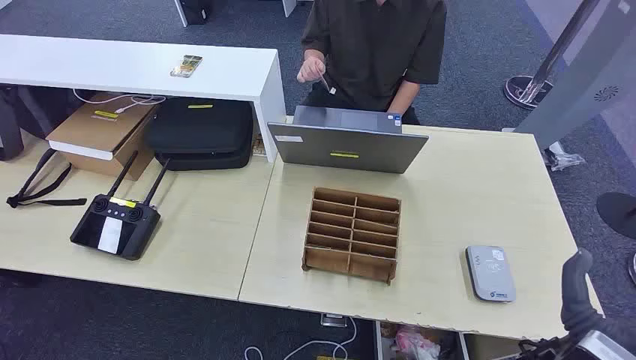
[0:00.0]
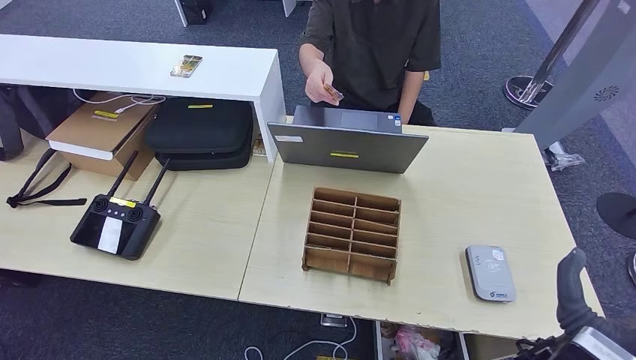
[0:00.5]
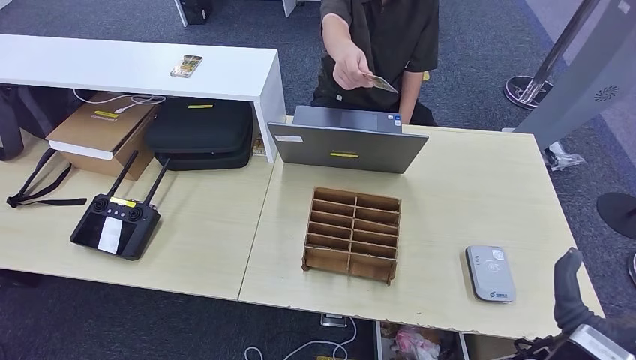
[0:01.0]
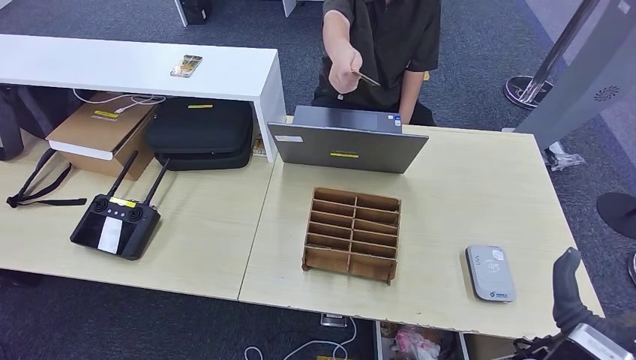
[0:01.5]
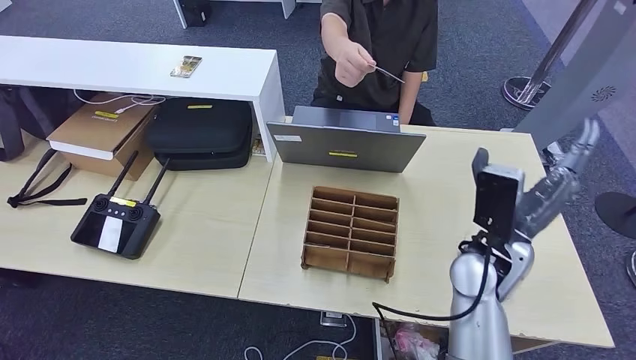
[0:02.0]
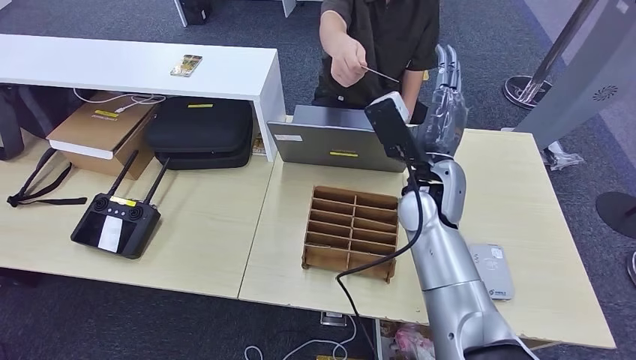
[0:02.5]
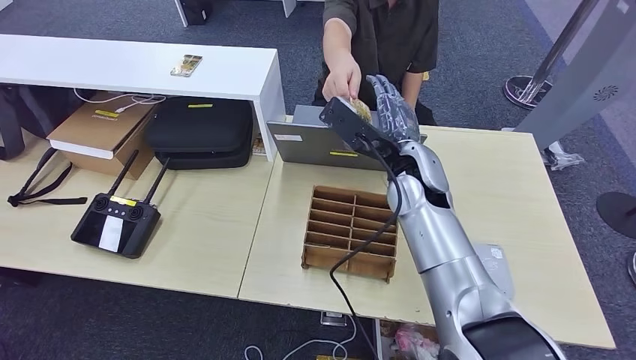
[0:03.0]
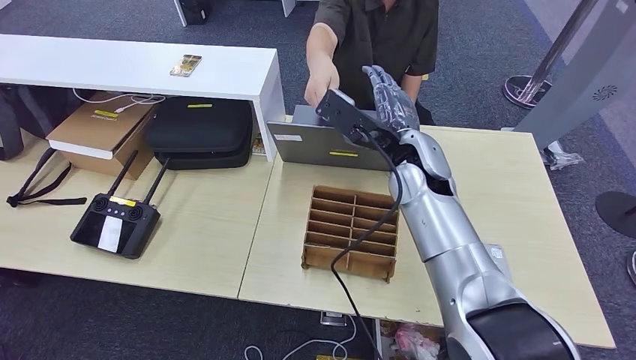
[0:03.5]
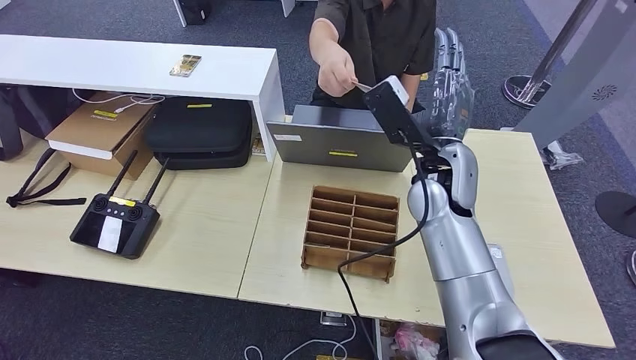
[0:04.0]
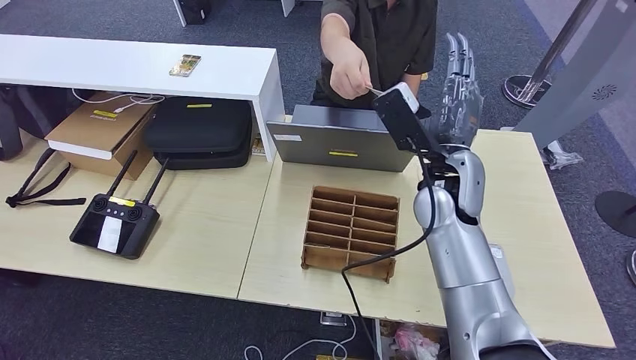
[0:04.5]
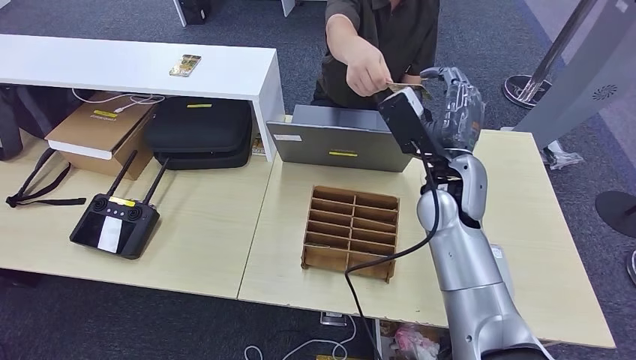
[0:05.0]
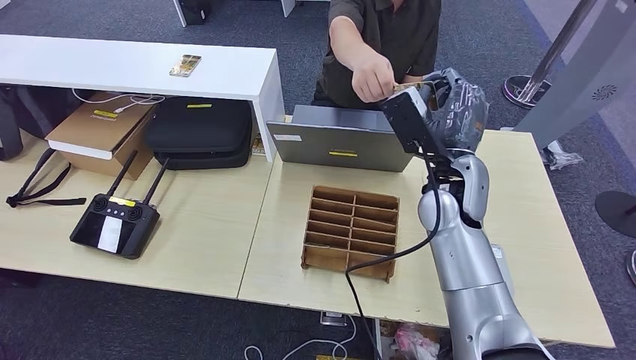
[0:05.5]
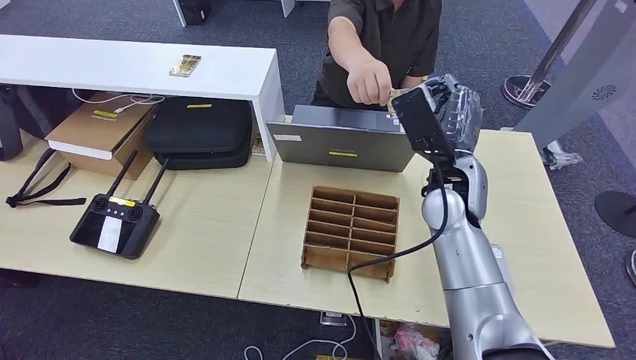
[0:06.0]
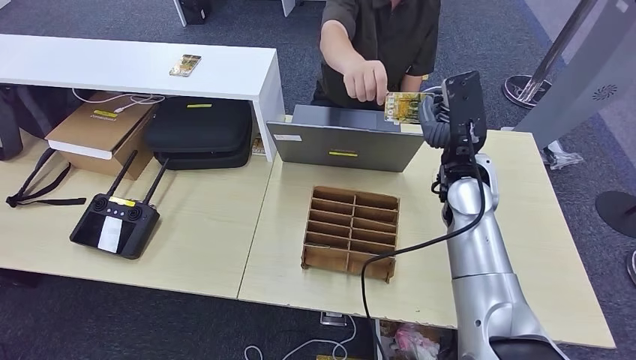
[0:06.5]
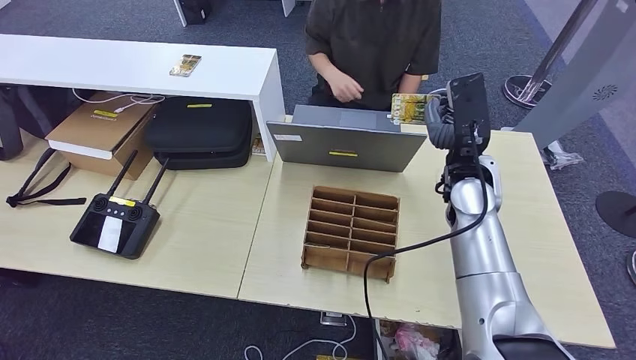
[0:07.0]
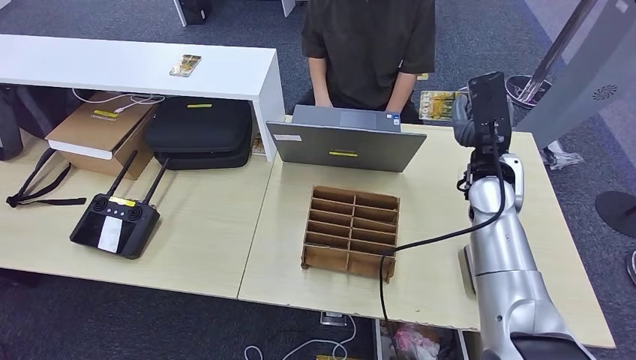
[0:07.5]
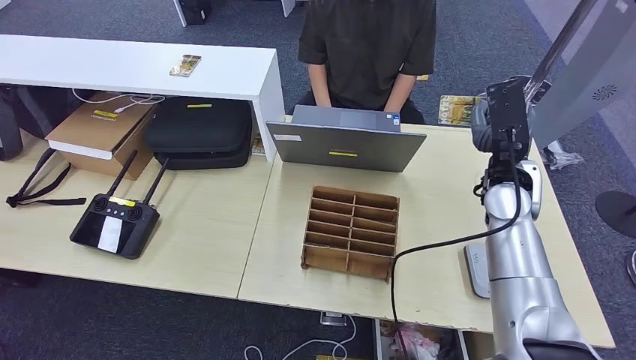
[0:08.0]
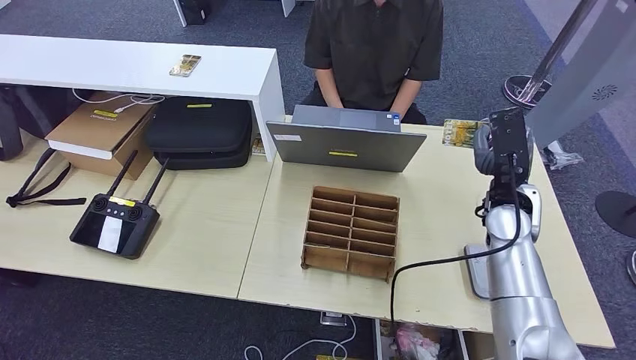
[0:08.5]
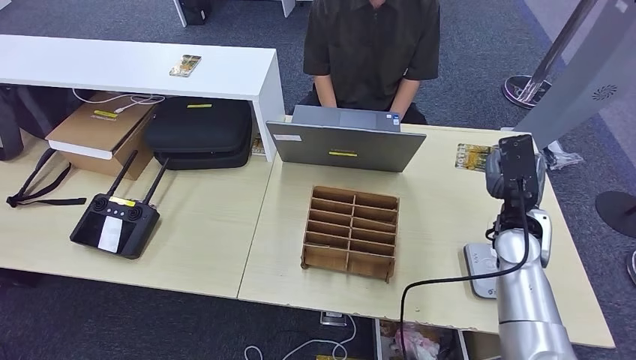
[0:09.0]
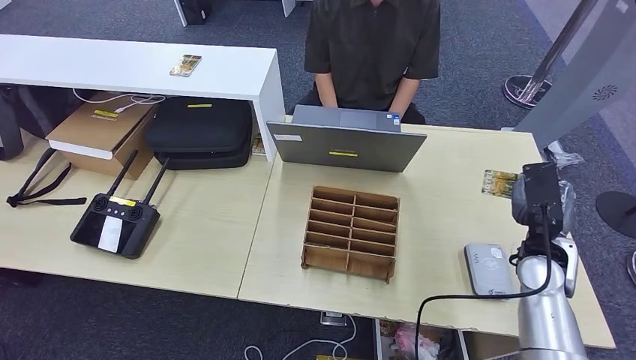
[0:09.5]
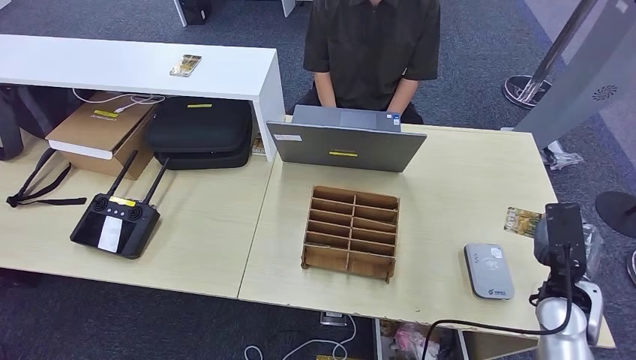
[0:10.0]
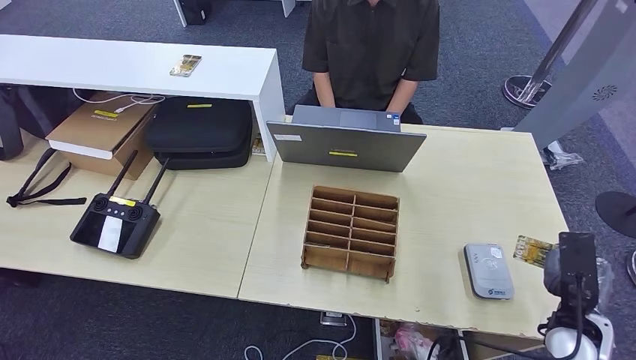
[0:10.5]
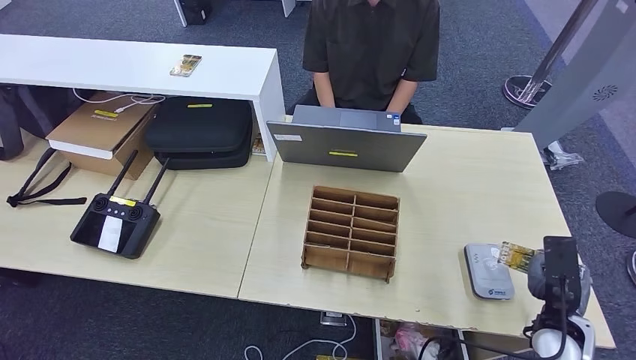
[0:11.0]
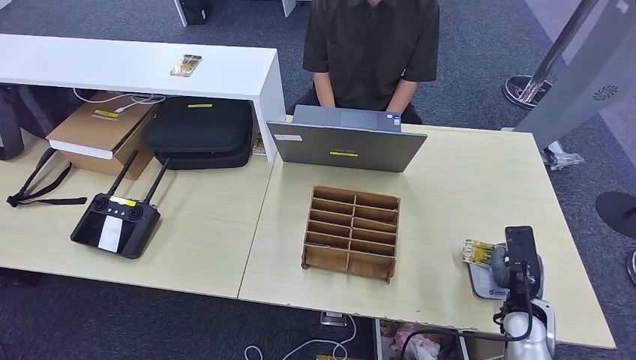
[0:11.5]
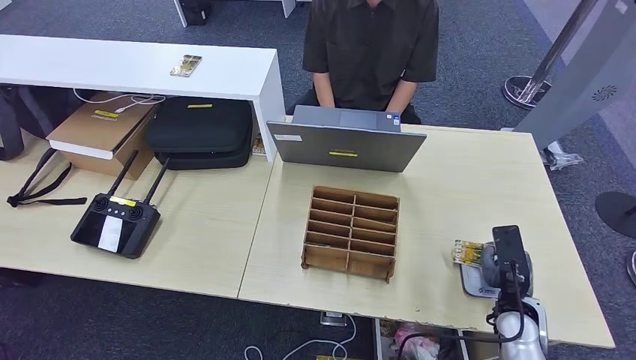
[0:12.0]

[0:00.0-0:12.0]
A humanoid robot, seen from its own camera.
Step, 0:00.0 to 0:07.0: Take the ID card from the person's hand.
0:02.0 to 0:04.0: The right hand travels forward, to the left and upward by about 15 cm.
0:04.0 to 0:06.0: There are only small adjustments of the hands.
0:06.0 to 0:08.0: The right hand heads to the right, covering roughly 10 cm.
0:08.0 to 0:10.0: The right hand moves downward, backward and to the right, some 20 cm.
0:10.0 to 0:12.0: The right hand moves downward, some 5 cm.

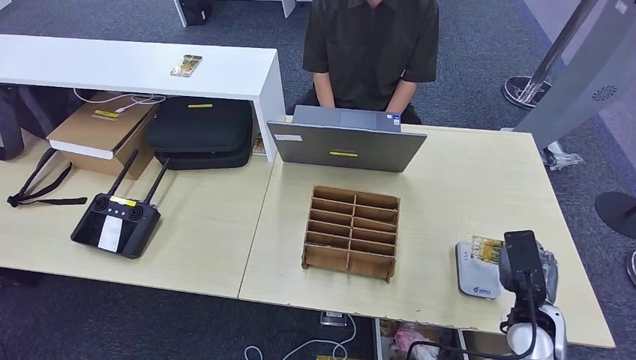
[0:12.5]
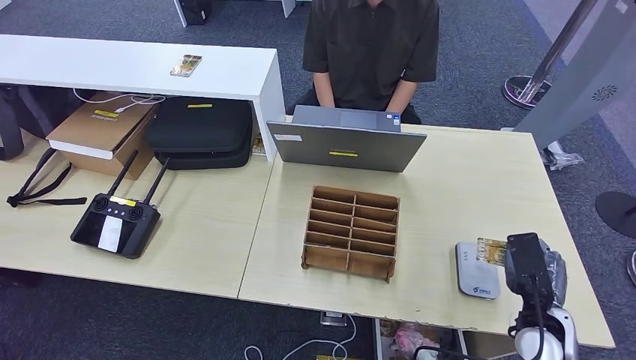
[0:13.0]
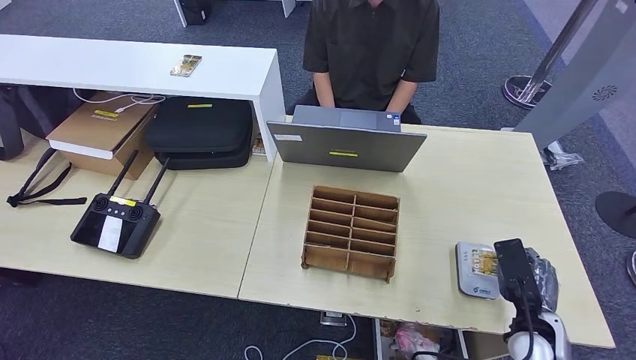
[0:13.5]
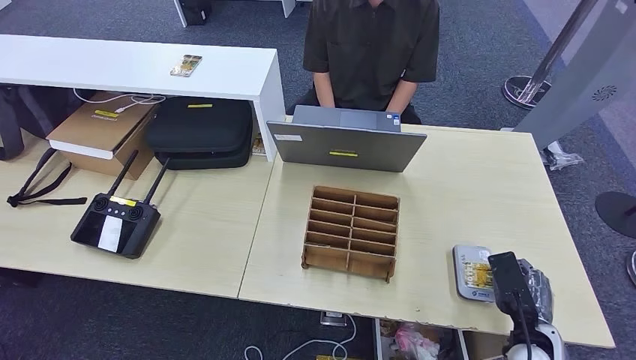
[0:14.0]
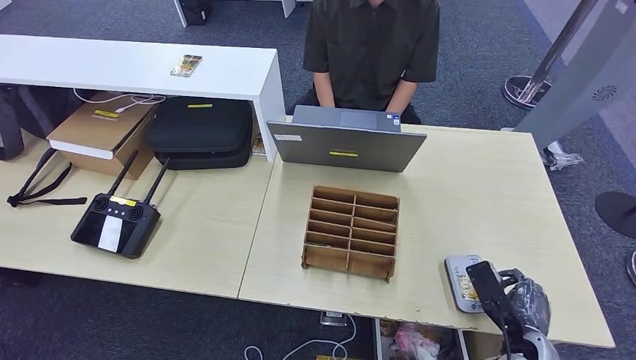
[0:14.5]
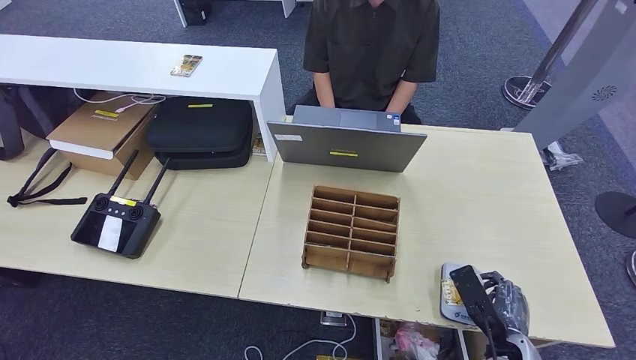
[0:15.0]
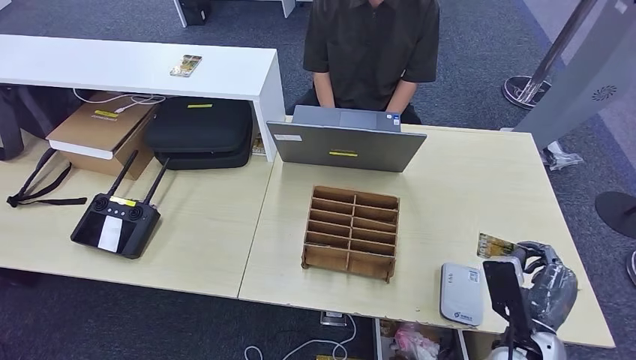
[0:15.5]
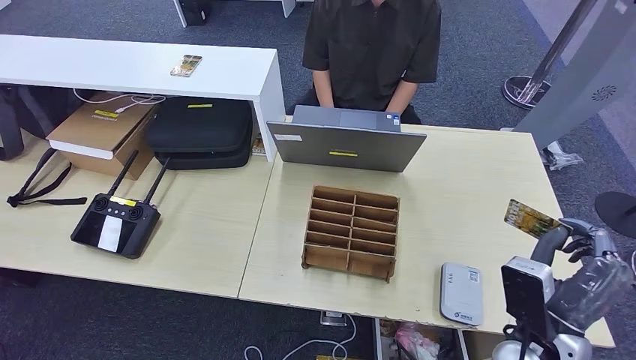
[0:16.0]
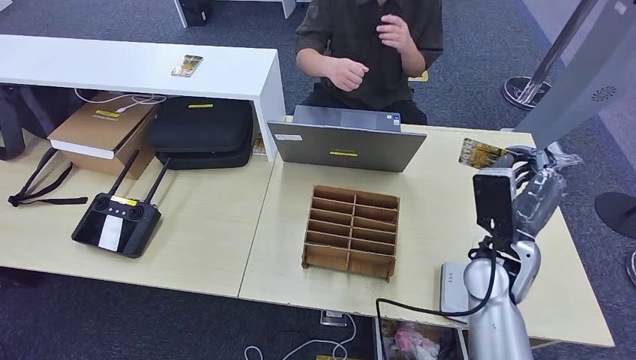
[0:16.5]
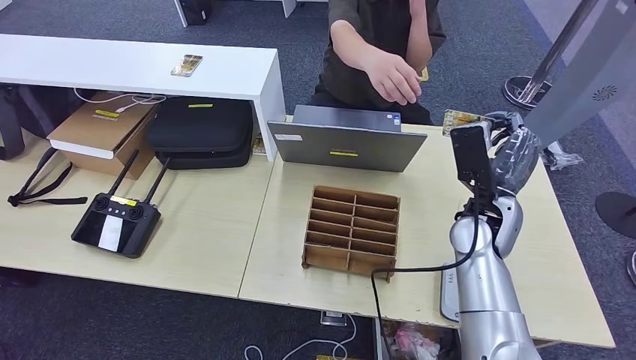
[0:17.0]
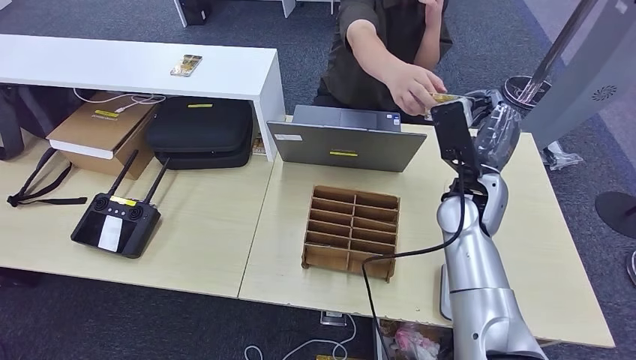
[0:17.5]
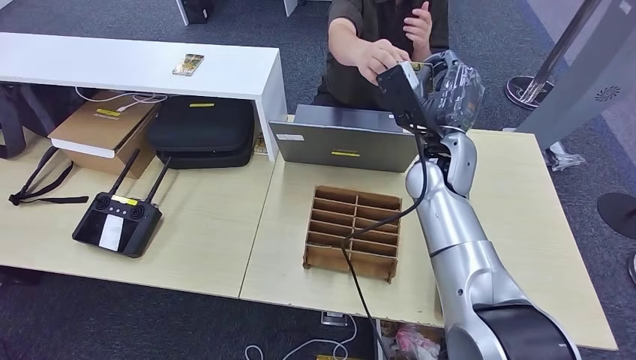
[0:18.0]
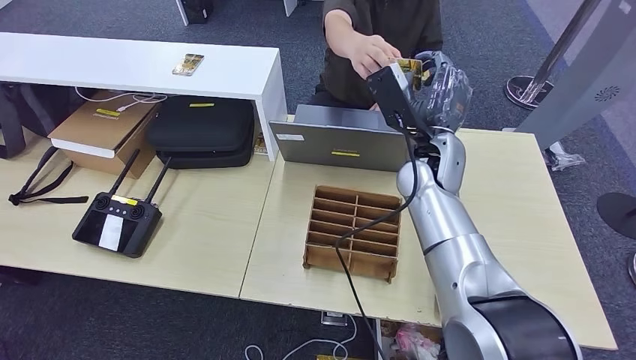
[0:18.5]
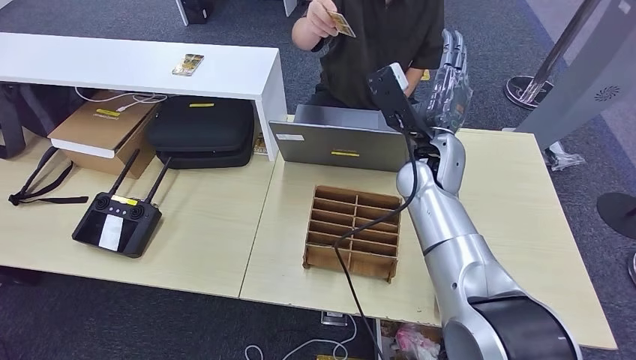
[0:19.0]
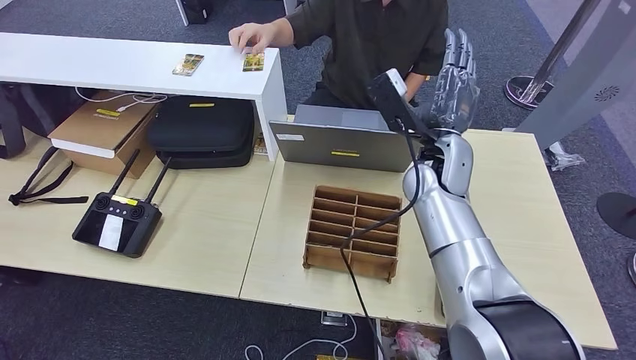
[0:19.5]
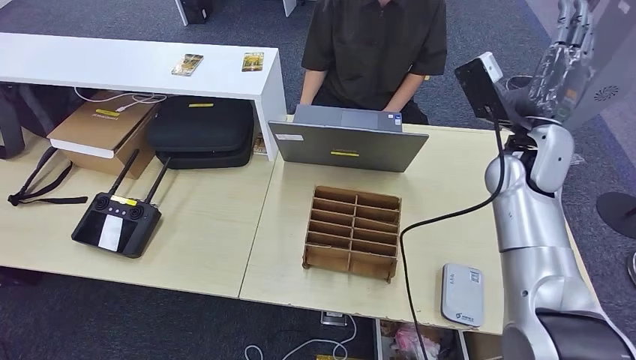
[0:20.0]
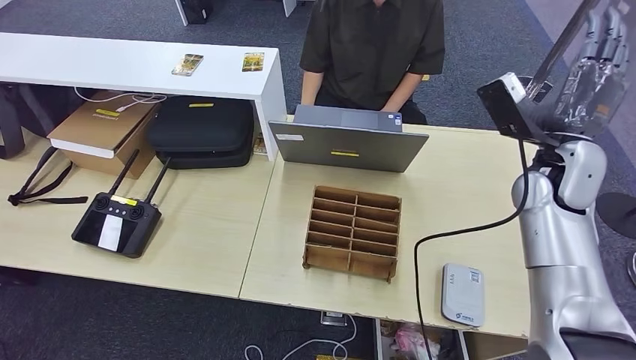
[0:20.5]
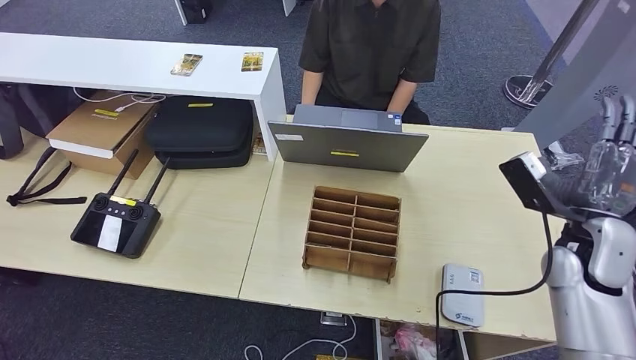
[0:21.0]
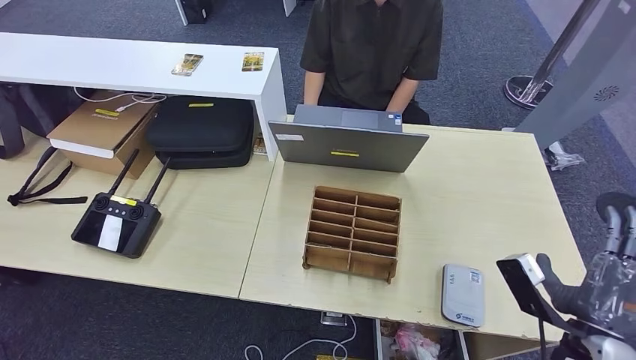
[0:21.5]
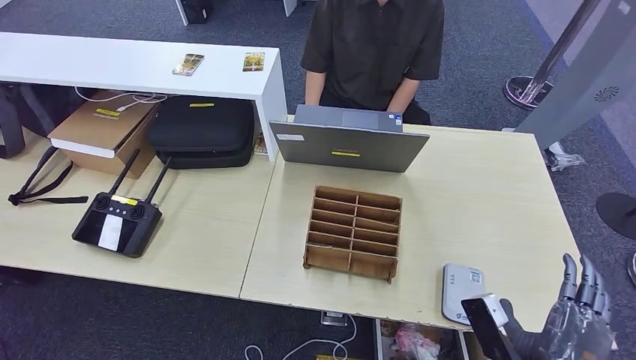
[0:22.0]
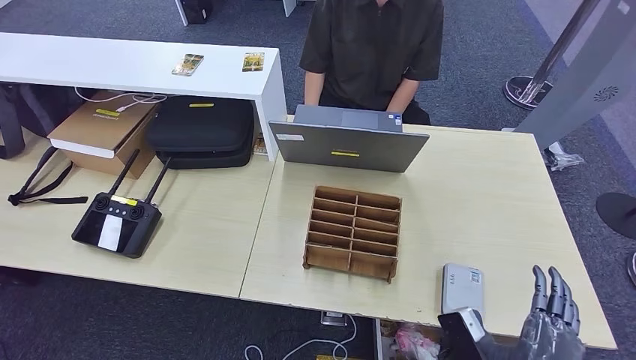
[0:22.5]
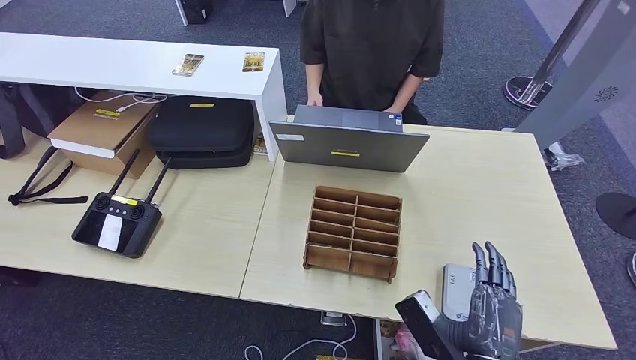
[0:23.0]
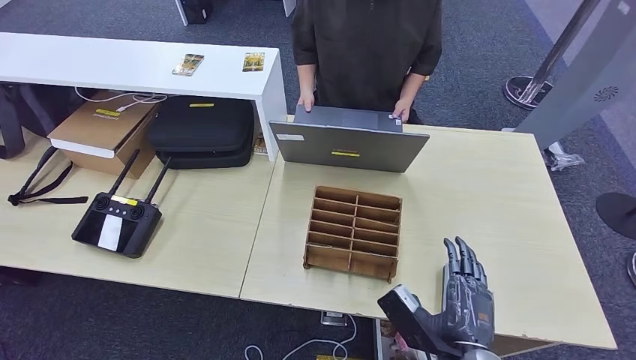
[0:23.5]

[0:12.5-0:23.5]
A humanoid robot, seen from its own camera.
Step, 0:12.5 to 0:19.0: Hand the ID card to the person.
0:12.5 to 0:14.5: The right hand moves about 5 cm.
0:14.5 to 0:16.0: The right hand is displaced upward by some 10 cm.
0:18.0 to 0:20.0: The right hand travels to the right by roughly 10 cm.
0:20.0 to 0:21.5: The right hand shifts about 30 cm backward and downward.
0:21.5 to 0:23.5: The right hand travels to the left by about 15 cm.
